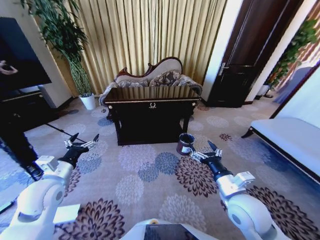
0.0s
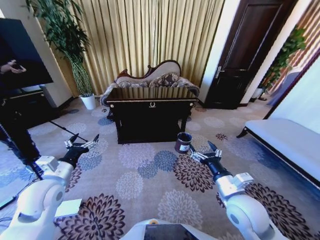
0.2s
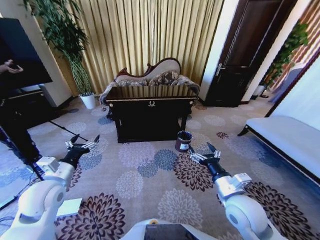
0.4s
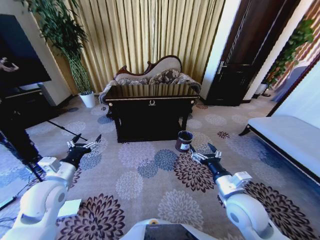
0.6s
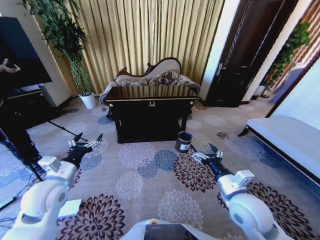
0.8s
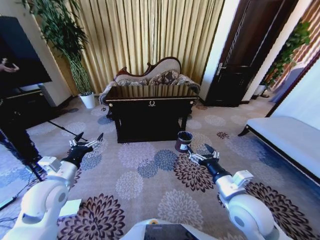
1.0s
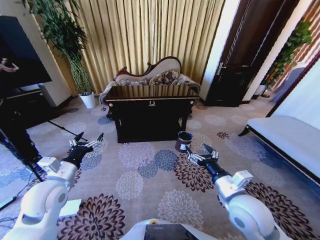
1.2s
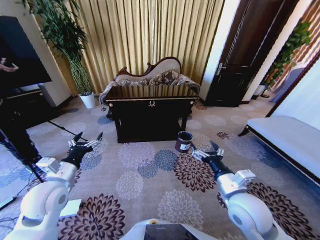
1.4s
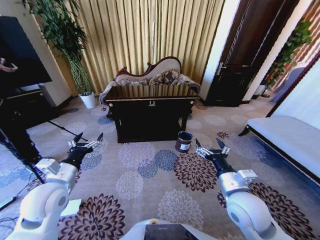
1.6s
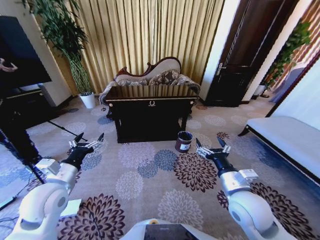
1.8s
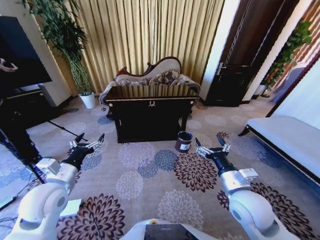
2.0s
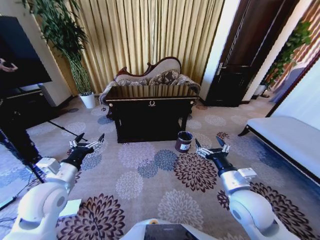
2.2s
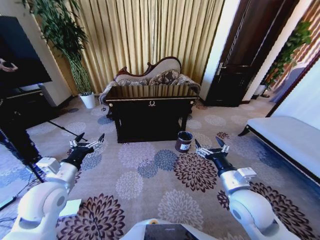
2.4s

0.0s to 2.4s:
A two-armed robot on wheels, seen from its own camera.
Task of the whole recording: Move to the front of the table and place the trash on the table into the trash bin.
1.2s to 2.4s: The grippers make only small movements.

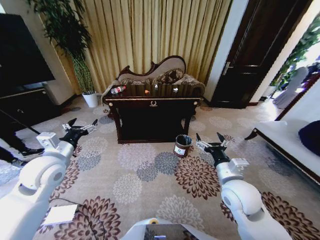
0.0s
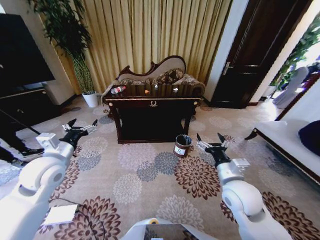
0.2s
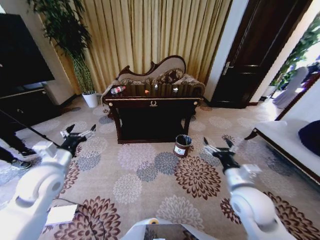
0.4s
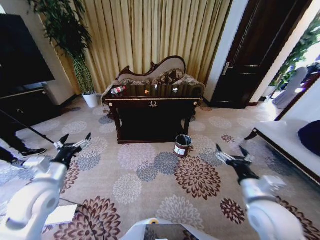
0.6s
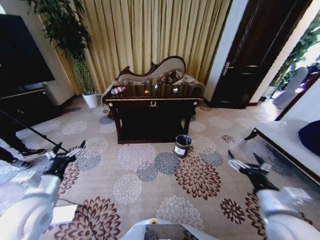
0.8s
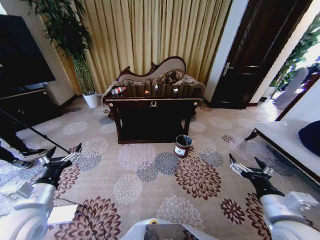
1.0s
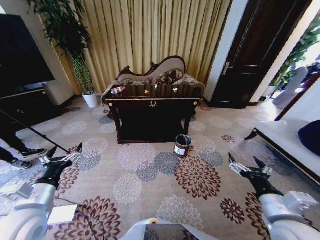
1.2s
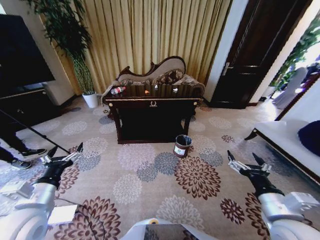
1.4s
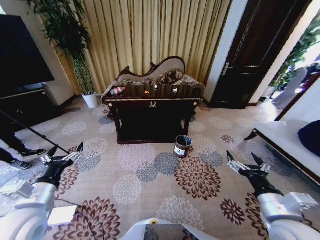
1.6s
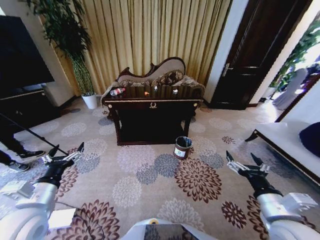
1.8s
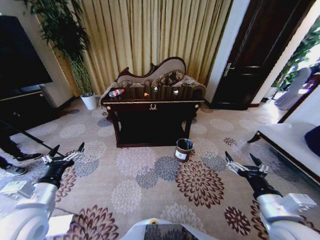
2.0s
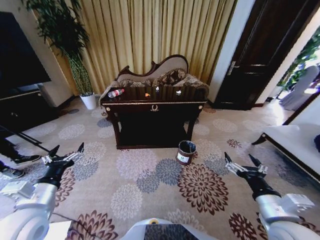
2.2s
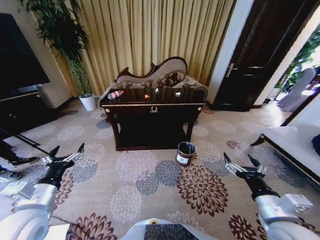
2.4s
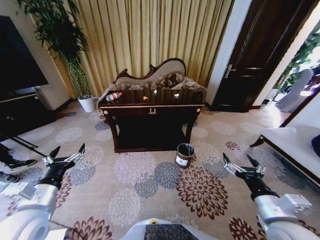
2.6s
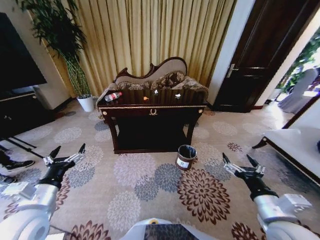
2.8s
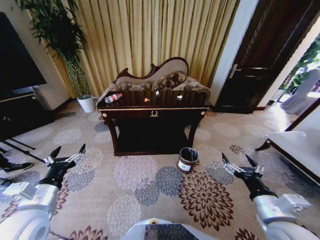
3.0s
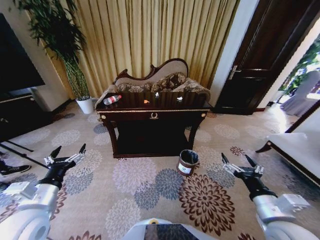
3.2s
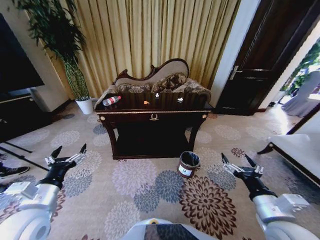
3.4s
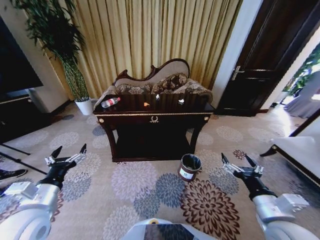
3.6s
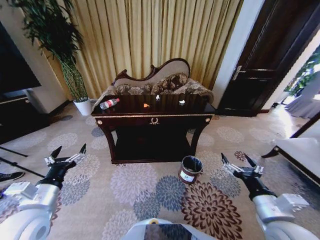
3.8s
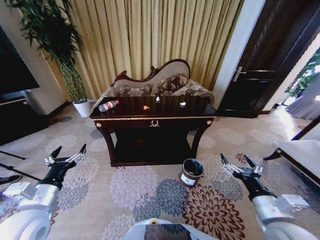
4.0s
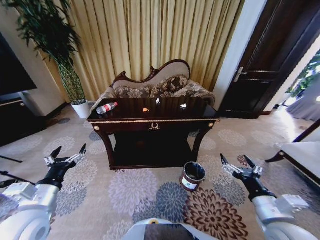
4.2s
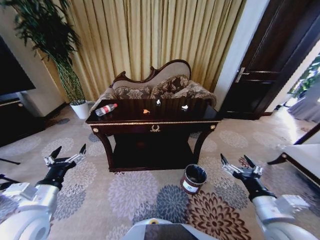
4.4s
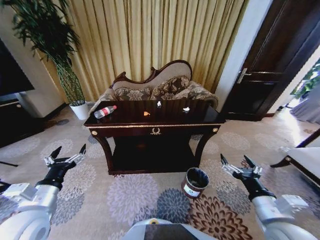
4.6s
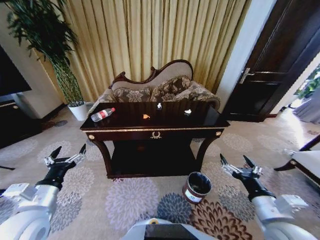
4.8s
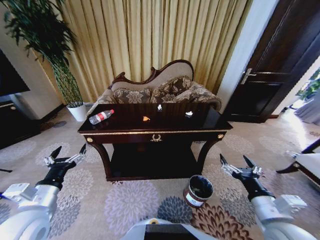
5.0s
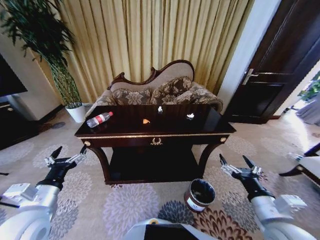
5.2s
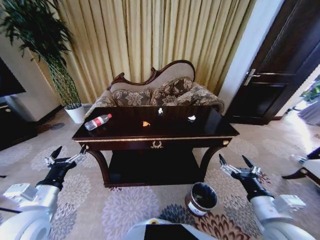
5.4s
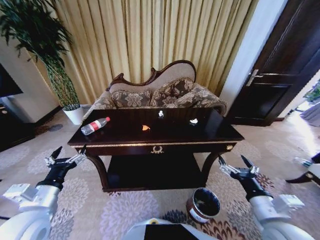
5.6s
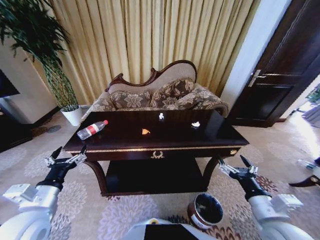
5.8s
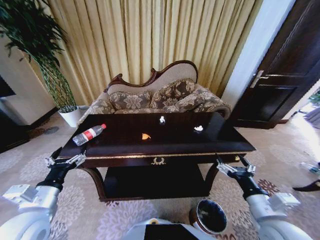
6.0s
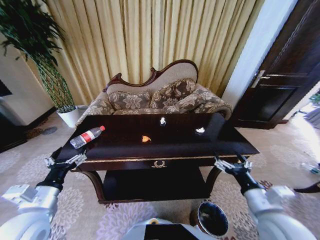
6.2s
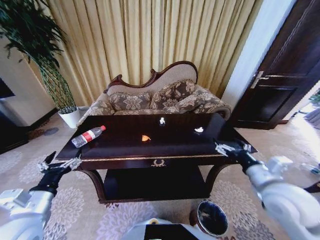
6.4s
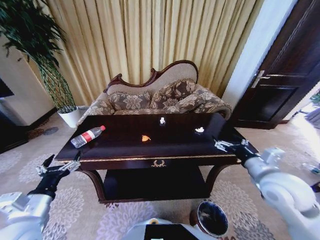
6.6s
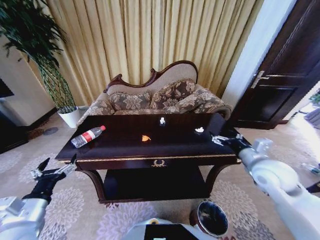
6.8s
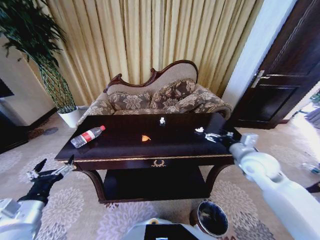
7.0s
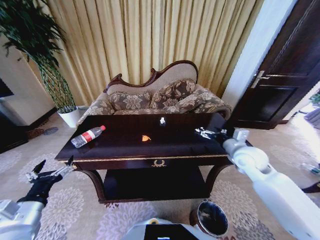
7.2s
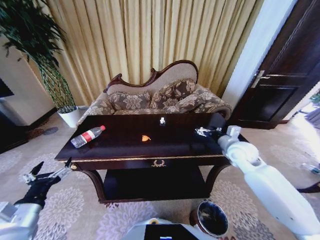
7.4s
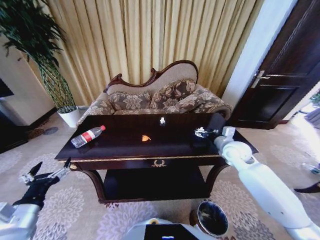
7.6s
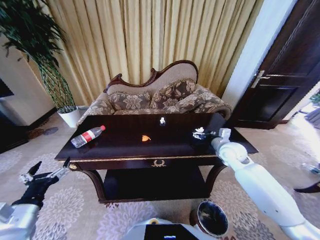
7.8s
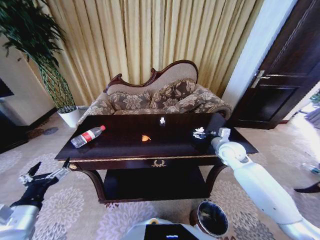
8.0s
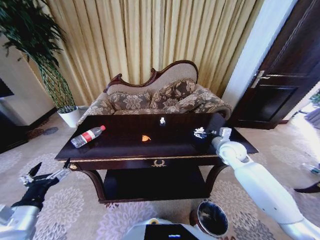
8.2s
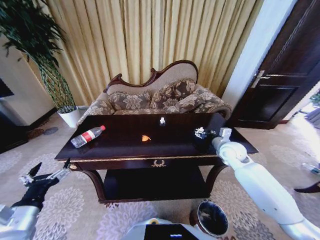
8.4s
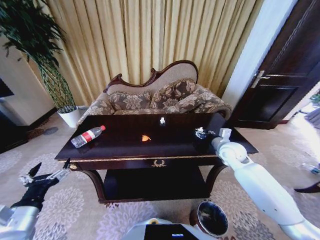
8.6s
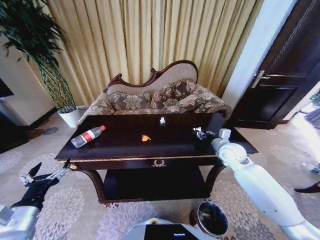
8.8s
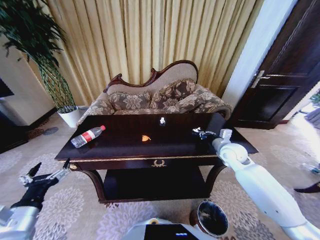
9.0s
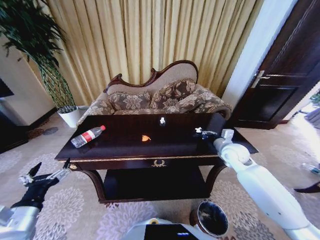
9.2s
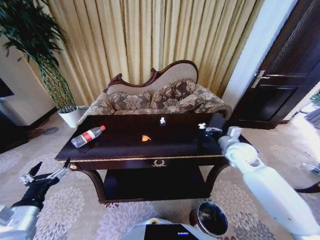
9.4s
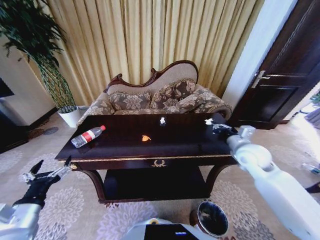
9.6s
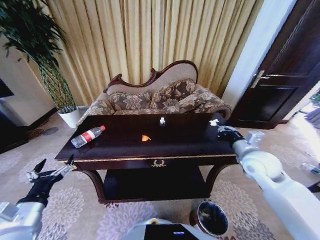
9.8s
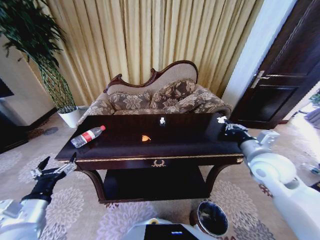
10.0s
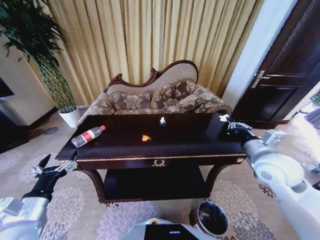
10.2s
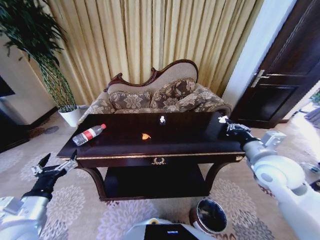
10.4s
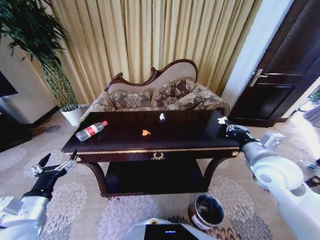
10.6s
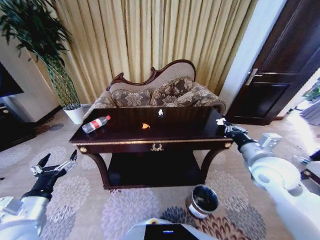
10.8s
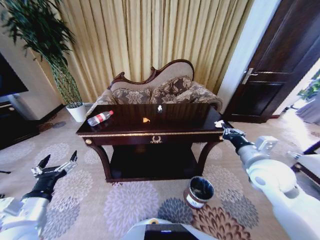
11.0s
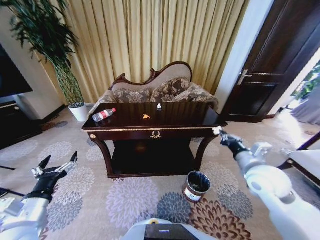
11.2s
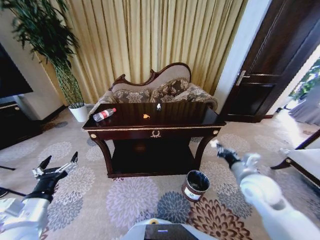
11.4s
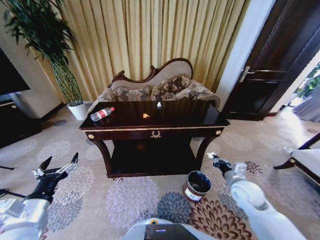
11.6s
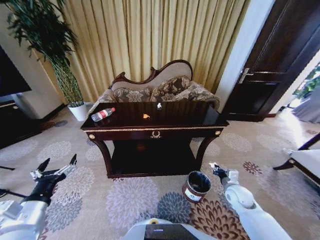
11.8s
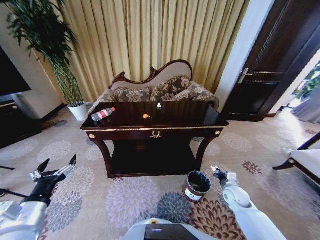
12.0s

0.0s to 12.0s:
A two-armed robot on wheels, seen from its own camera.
Task of the whole recording: Move to the front of the table and place the trash on the table into the trash bin.
6.0s to 7.6s: The right gripper is displaced forward by roughly 25 cm.
7.6s to 9.0s: The right gripper closes its fingers.
9.0s to 10.4s: The right gripper goes about 15 cm backward and upward.
10.4s to 12.0s: The right gripper heads downward, covering roughly 30 cm.

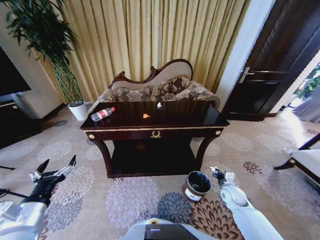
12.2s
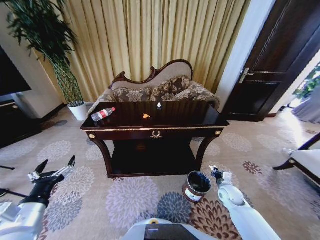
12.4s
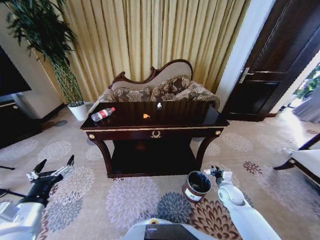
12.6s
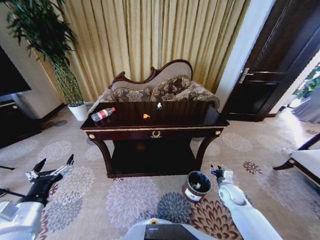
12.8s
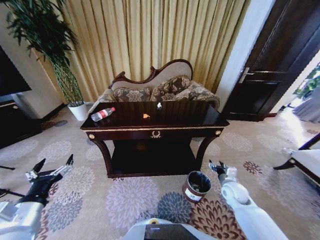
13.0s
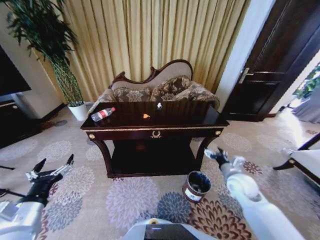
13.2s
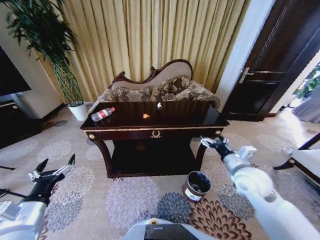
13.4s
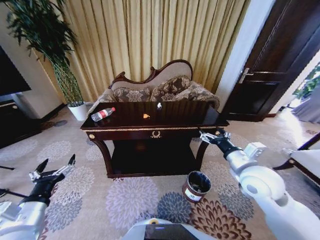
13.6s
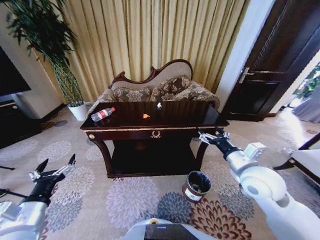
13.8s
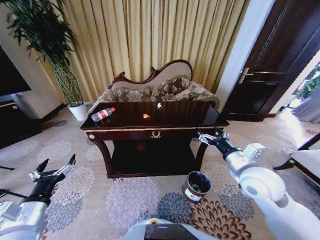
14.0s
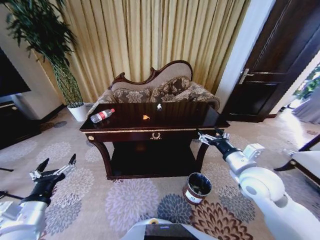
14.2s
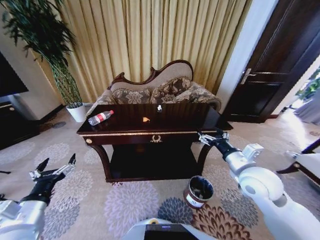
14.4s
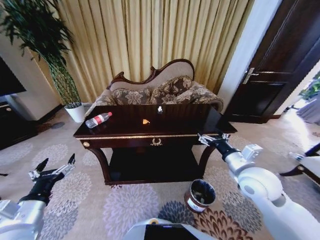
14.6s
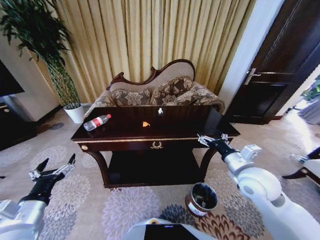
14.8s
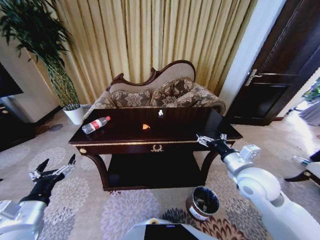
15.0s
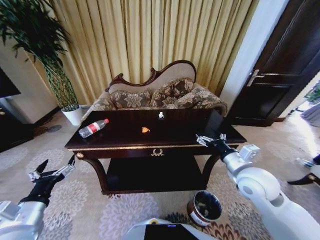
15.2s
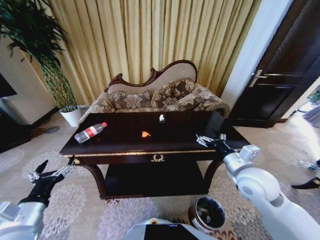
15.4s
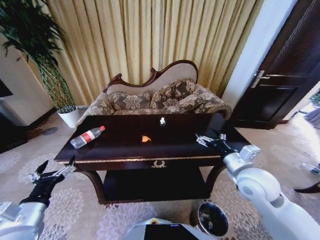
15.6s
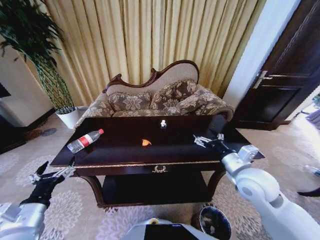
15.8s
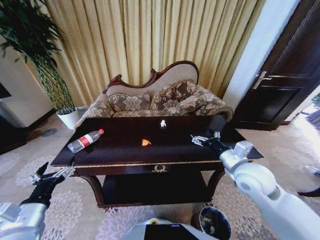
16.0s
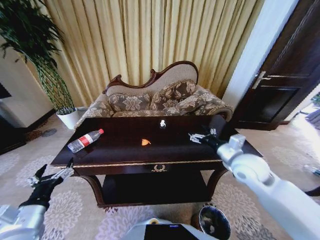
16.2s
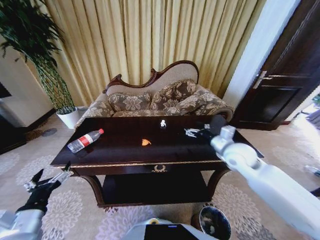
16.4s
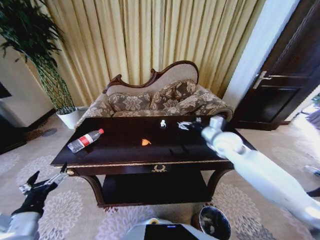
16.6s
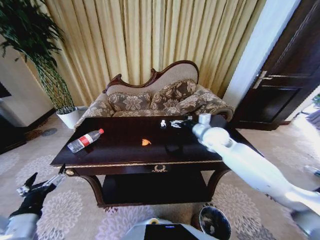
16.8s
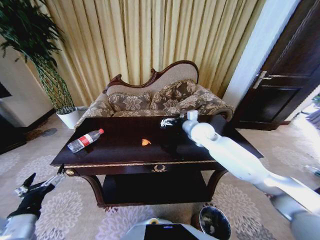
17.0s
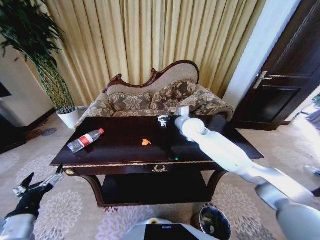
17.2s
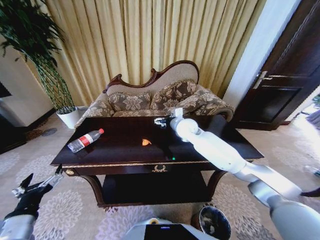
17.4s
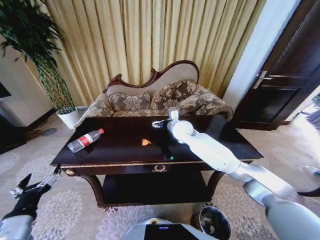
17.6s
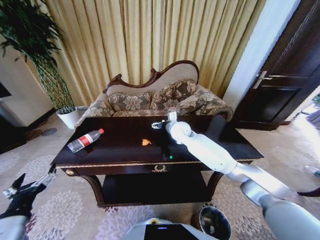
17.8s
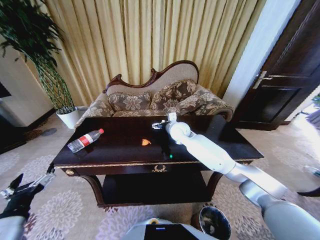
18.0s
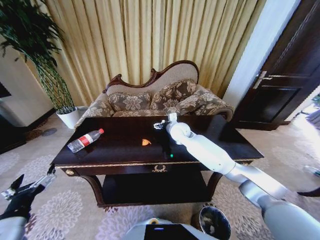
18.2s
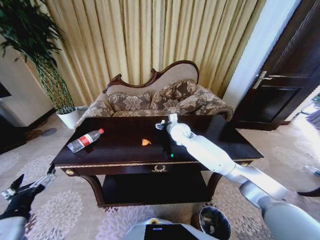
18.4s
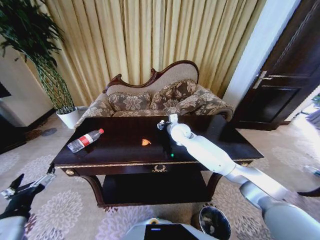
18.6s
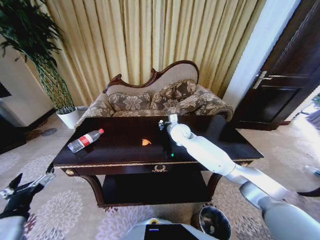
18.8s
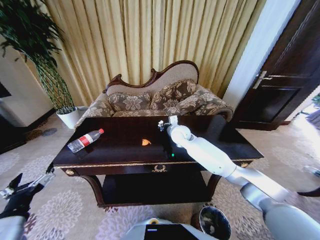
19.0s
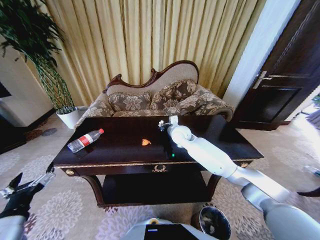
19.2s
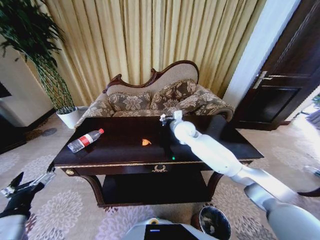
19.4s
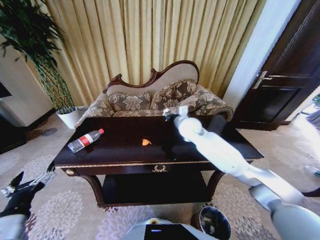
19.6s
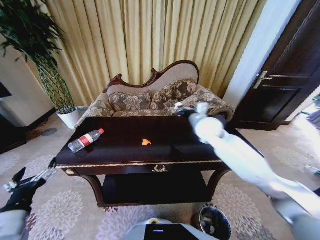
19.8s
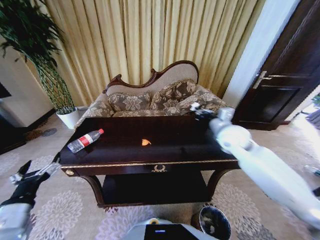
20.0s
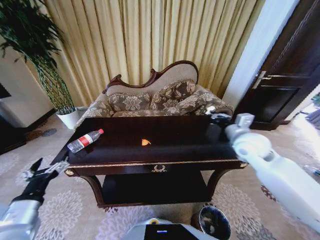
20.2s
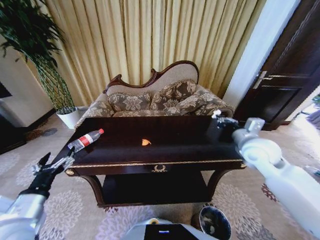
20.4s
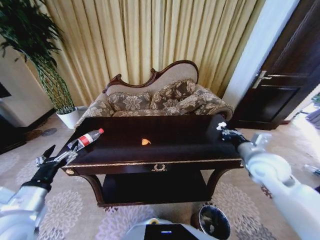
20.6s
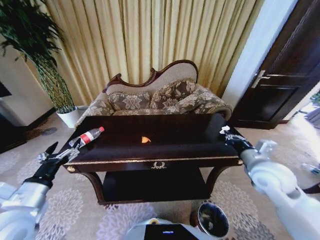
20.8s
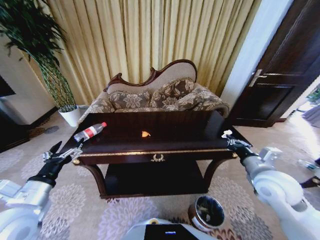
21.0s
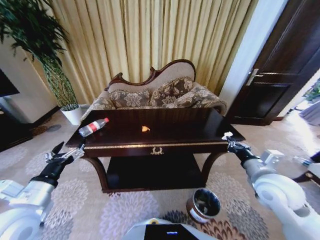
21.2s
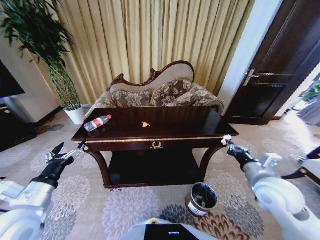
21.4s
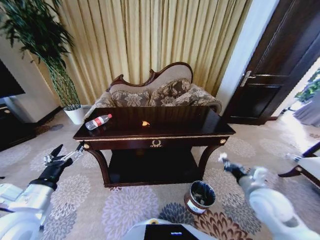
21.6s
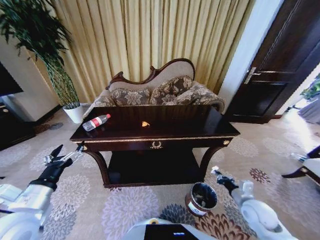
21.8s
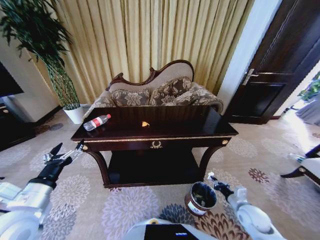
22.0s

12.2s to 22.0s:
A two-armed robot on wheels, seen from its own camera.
Task of the whole recording: Move to the front of the table and place the trash on the table into the trash bin.
12.2s to 13.6s: The right gripper shifts approximately 25 cm upward, and opens.
15.0s to 16.4s: The right gripper heads forward, covering roughly 10 cm.
16.4s to 17.8s: The right gripper moves to the left and forward, about 25 cm.
17.8s to 19.2s: The right gripper closes its fingers.
19.2s to 20.6s: The left gripper moves forward, roughly 5 cm, while the right gripper shifts some 30 cm to the right and backward.
20.6s to 22.0s: The right gripper is displaced downward and backward by approximately 25 cm.
